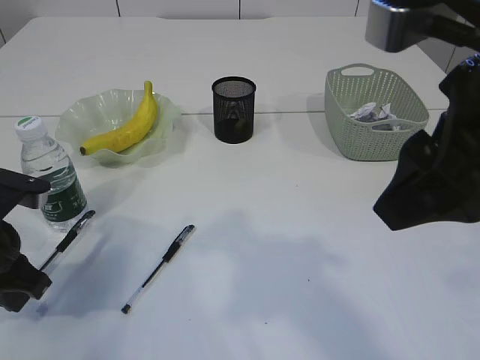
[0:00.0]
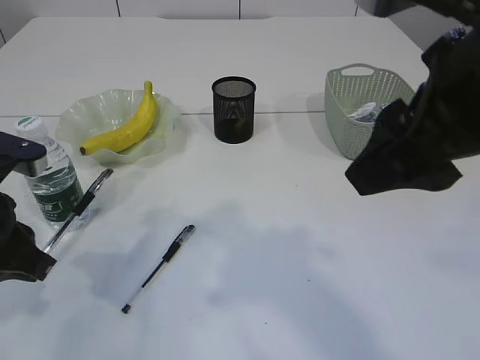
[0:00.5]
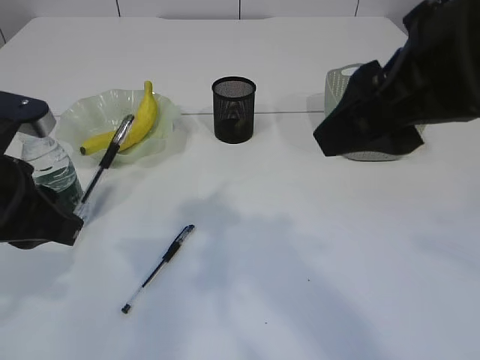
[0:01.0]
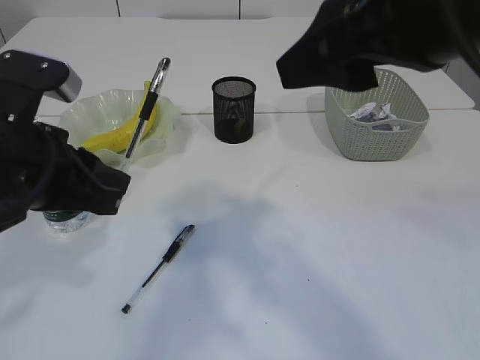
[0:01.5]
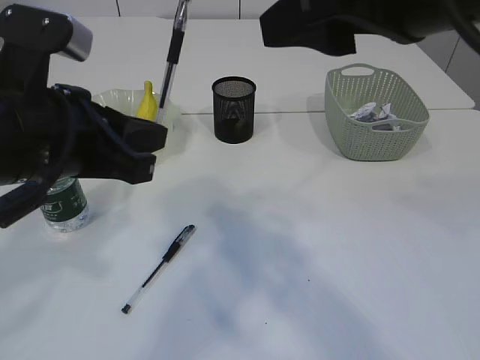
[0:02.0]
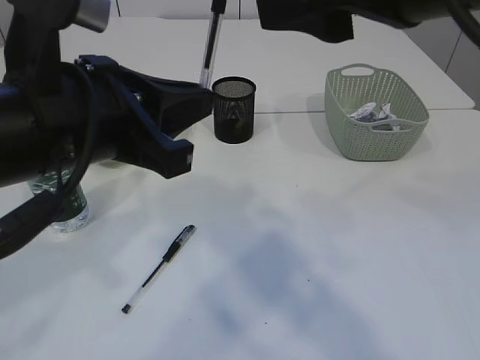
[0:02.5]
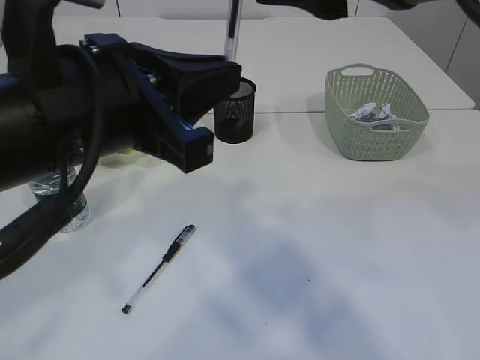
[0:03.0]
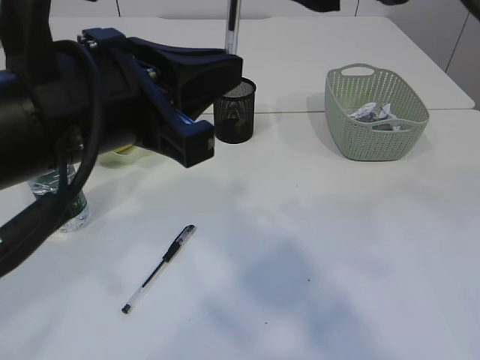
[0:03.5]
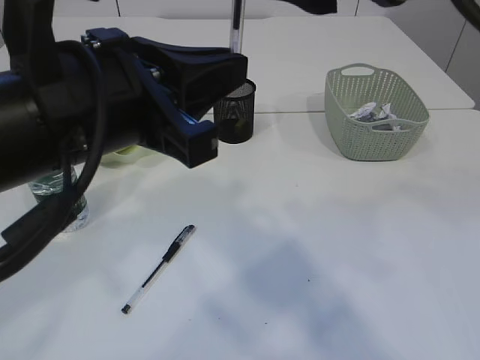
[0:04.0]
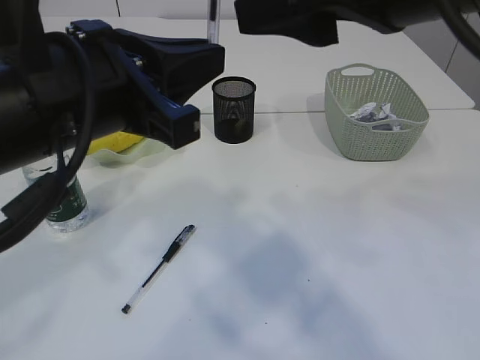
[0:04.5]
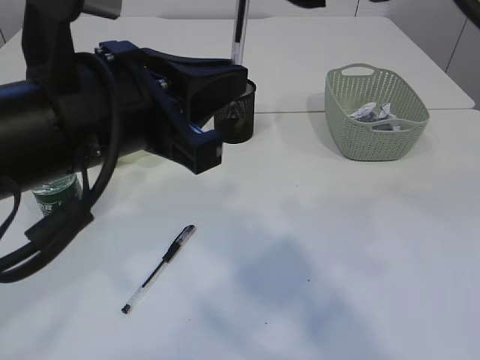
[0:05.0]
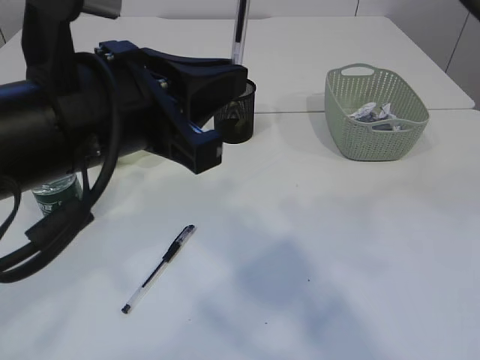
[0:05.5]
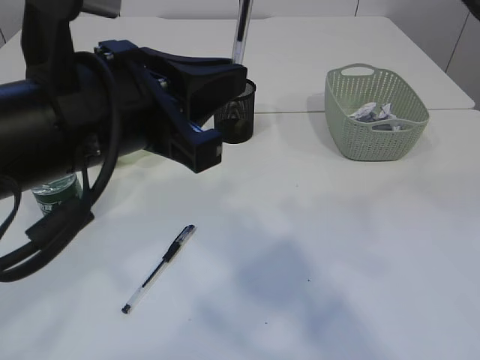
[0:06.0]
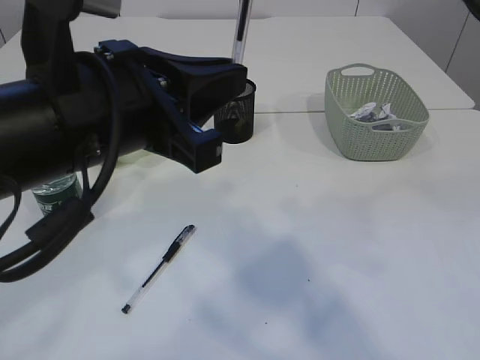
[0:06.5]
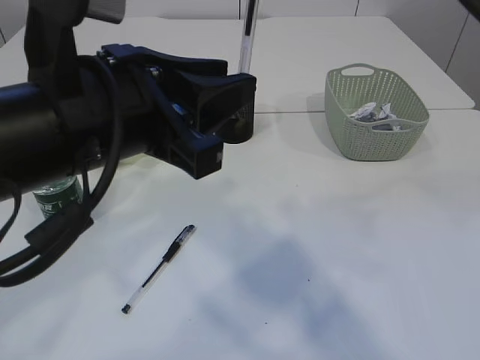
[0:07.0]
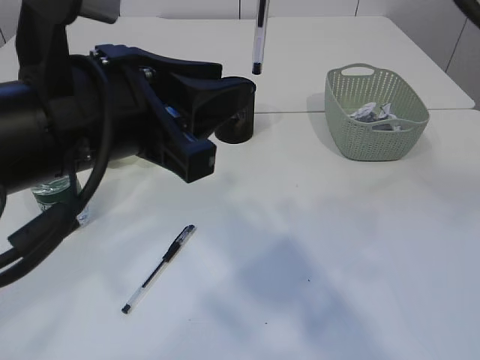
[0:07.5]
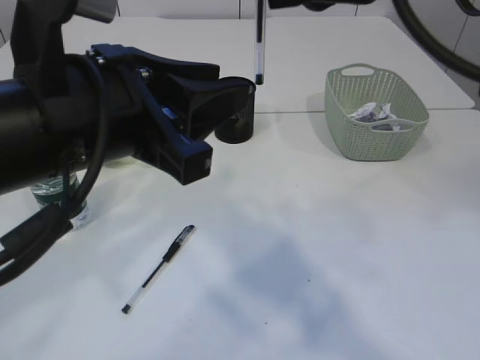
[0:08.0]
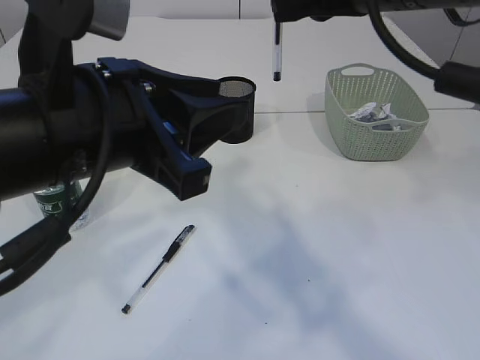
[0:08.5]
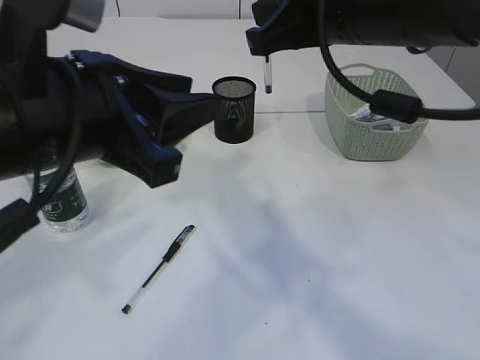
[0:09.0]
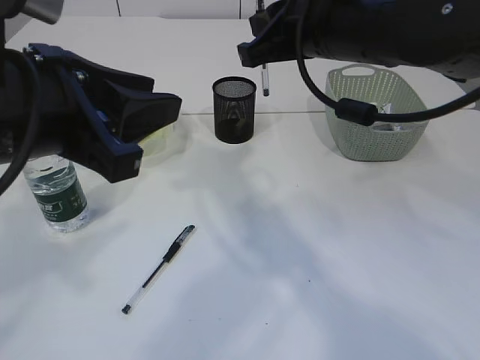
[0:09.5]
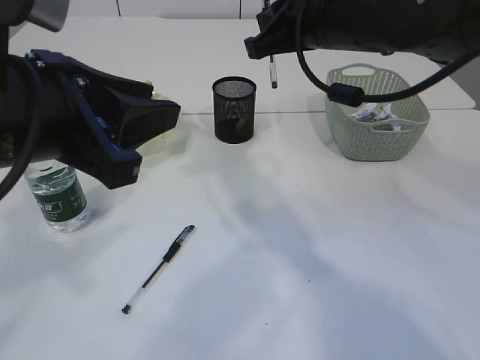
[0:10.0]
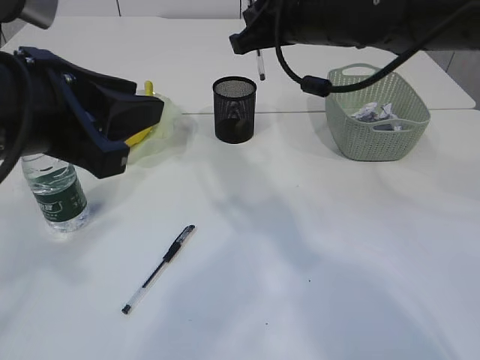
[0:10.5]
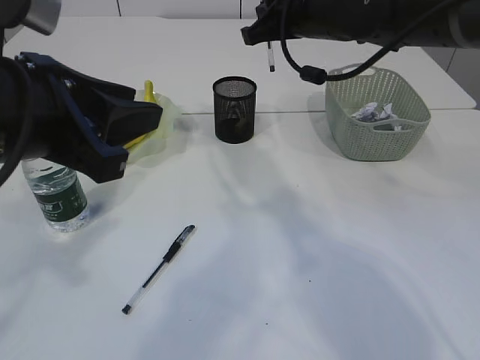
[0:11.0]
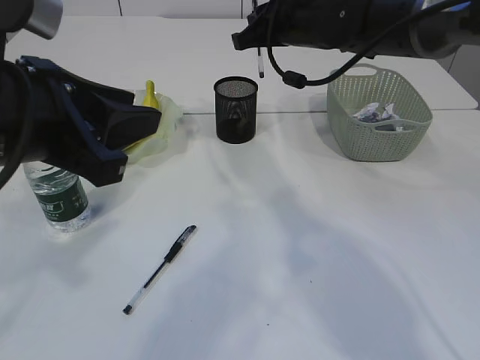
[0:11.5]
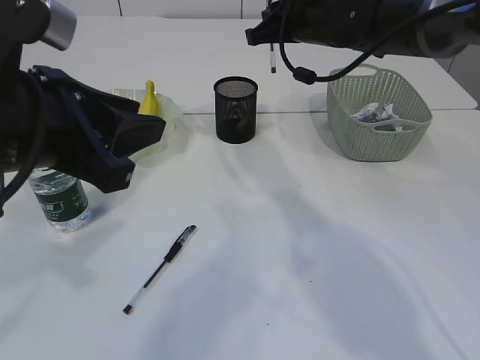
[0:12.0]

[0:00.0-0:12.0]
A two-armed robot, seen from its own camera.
Step, 0:01.0 to 0:08.0: transfer the pen to the right arm.
0:00.0 to 0:02.0: The right gripper moves approximately 5 cm. The left gripper moves upward and to the right, roughly 15 cm.
0:02.0 to 0:04.0: The left gripper goes roughly 5 cm to the right.
0:04.0 to 0:06.0: The right gripper closes.
0:06.0 to 0:08.0: The left gripper opens.
0:08.0 to 0:10.0: The right gripper goes roughly 15 cm forward and downward.
0:10.0 to 0:12.0: The right gripper heads forward, covering roughly 10 cm.

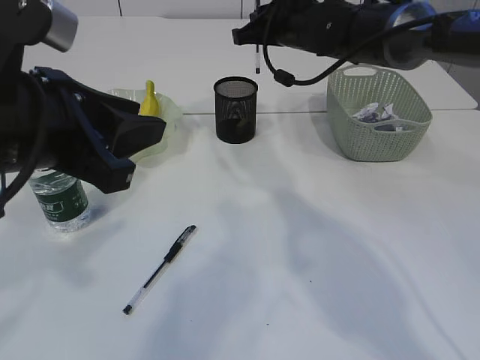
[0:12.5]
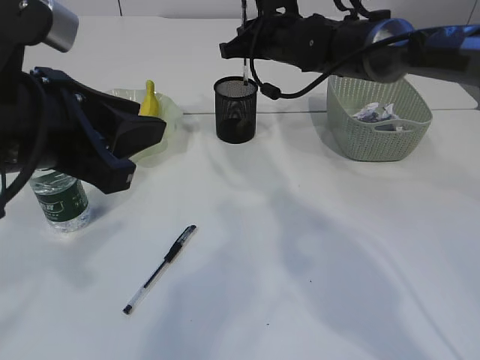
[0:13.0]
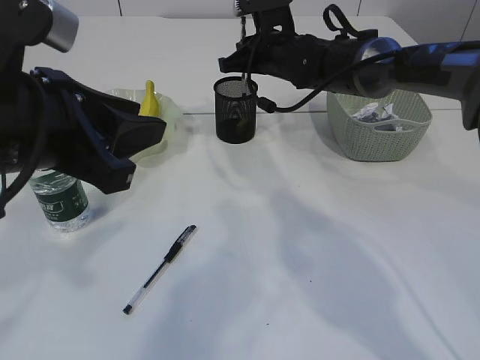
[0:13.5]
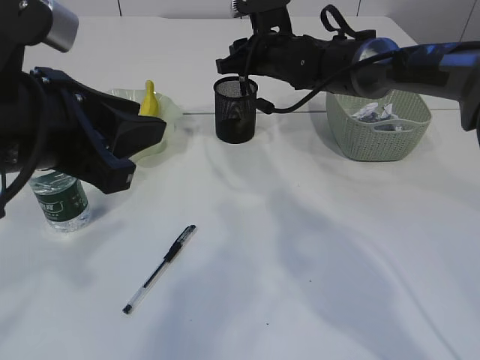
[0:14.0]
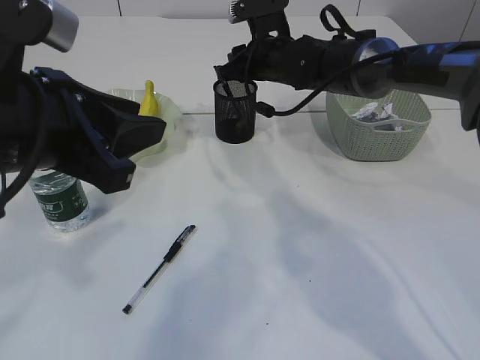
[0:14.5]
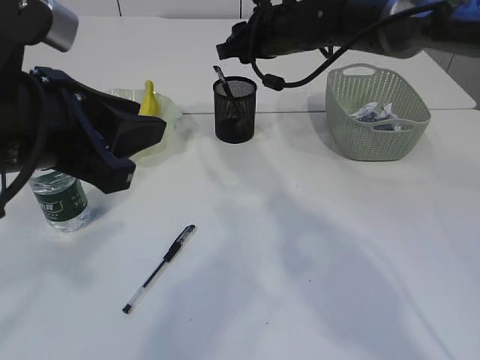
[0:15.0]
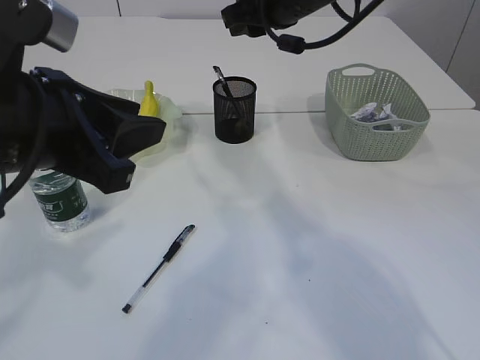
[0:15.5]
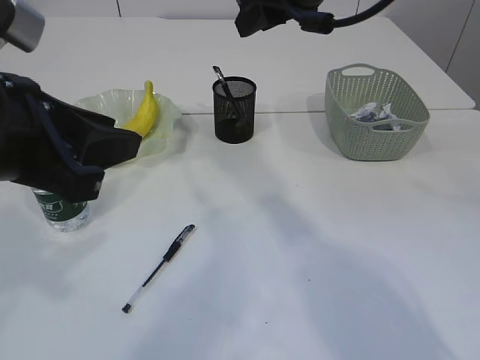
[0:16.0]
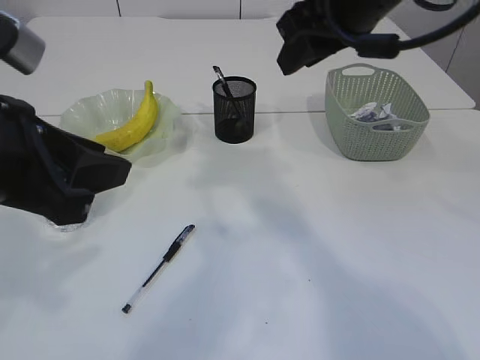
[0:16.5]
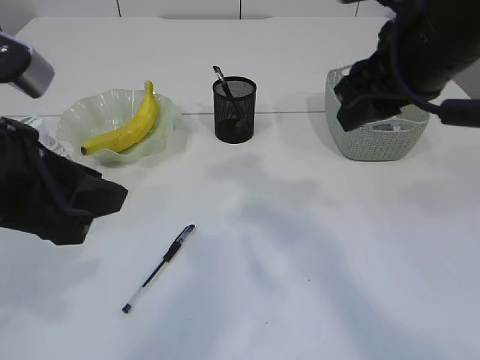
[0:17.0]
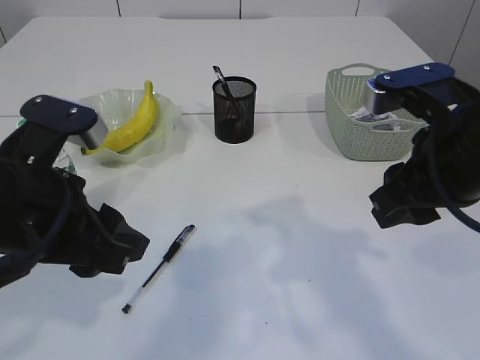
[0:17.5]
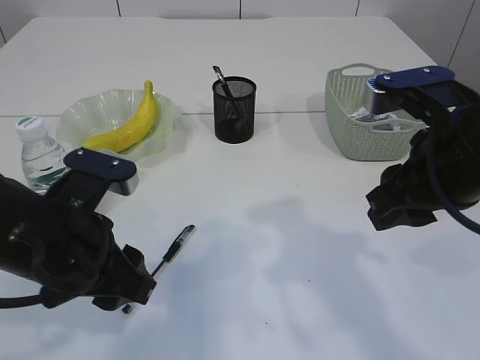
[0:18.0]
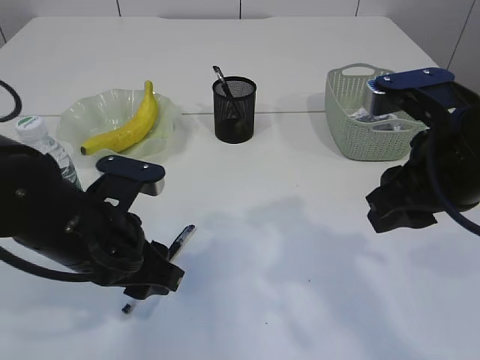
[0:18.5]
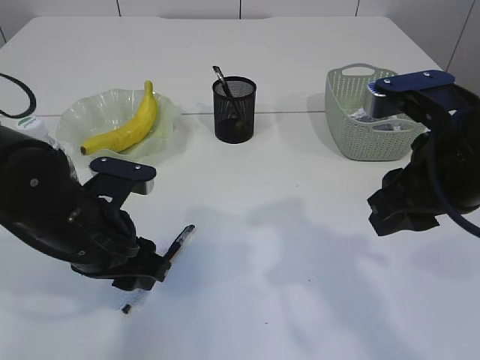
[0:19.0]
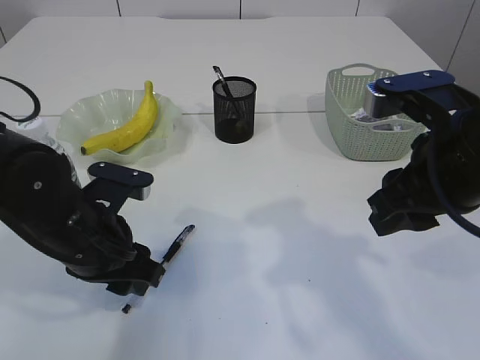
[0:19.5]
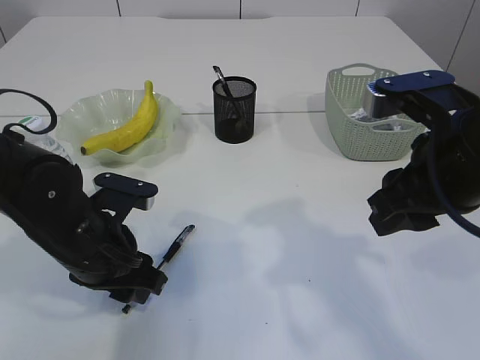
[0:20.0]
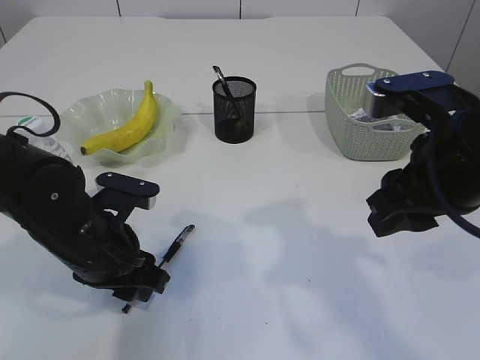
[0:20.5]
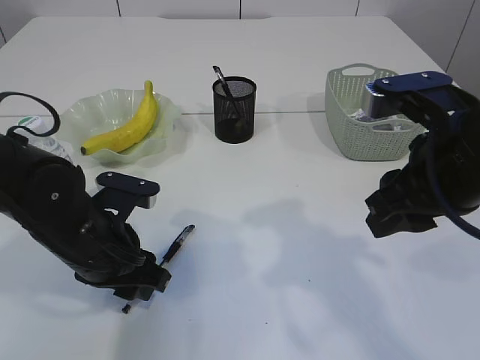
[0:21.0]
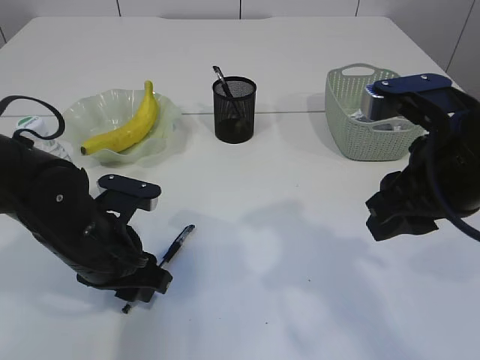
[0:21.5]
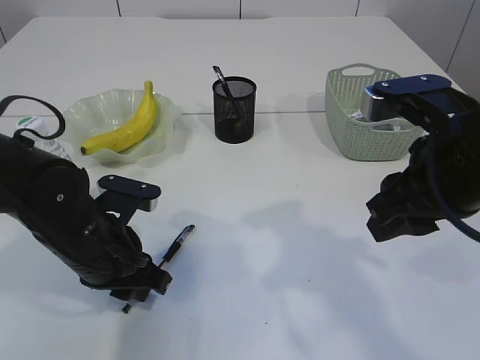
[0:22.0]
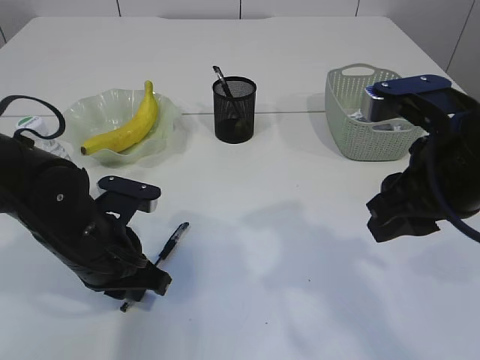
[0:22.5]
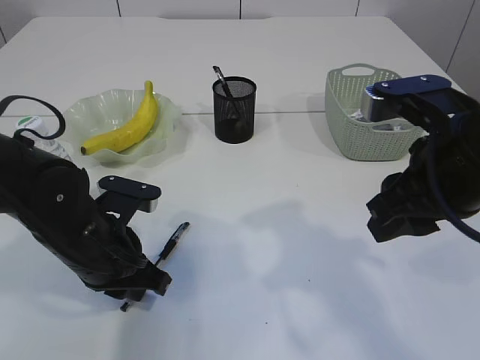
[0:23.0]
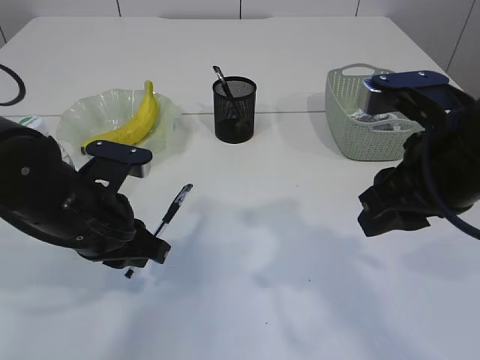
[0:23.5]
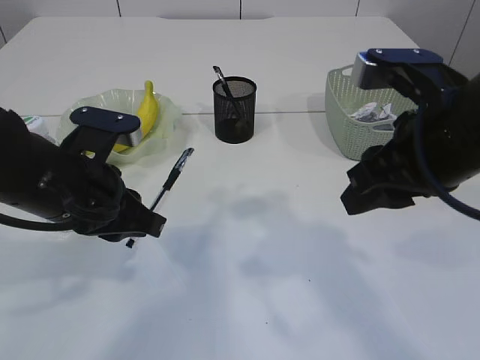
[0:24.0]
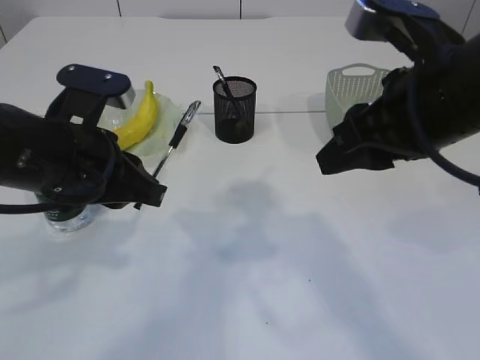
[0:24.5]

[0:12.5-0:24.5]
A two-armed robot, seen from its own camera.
Step, 0:12.5 to 0:15.0: Place the pen into the pen holder.
Step, 0:15.5 to 0:23.5: Pick up the pen with left arm.
0:12.5 to 0:14.5: The right gripper travels downward by about 5 cm, and opens.
0:14.5 to 0:16.5: The right gripper heads backward and upward, covering approximately 20 cm.
0:16.5 to 0:18.5: The left gripper is displaced downward by about 15 cm. The right gripper shifts roughly 15 cm backward, downward and to the right.
0:18.5 to 0:20.5: The left gripper changes place by some 5 cm.
0:20.5 to 0:22.5: The left gripper closes.
0:22.5 to 0:24.5: The left gripper travels upward by roughly 10 cm.

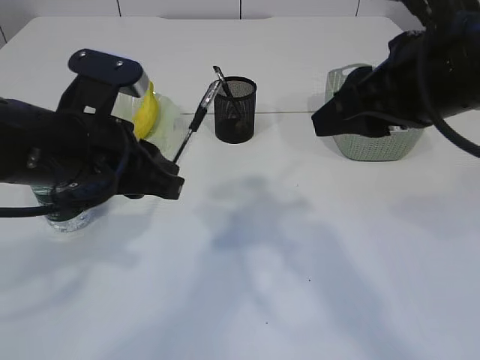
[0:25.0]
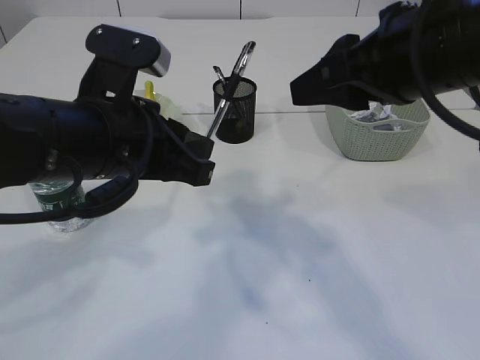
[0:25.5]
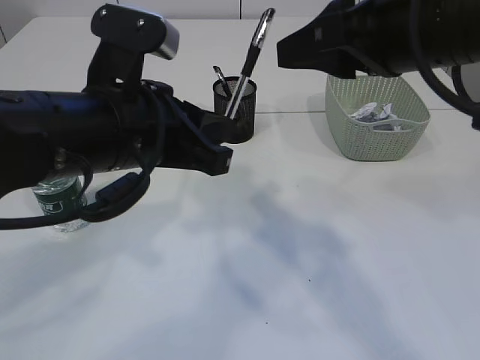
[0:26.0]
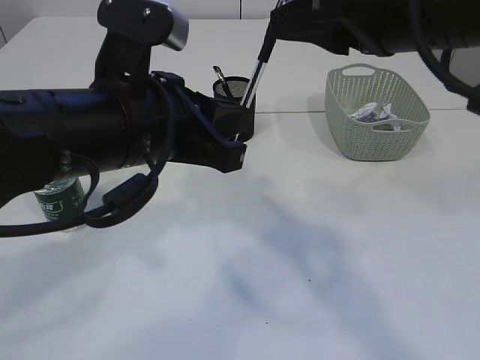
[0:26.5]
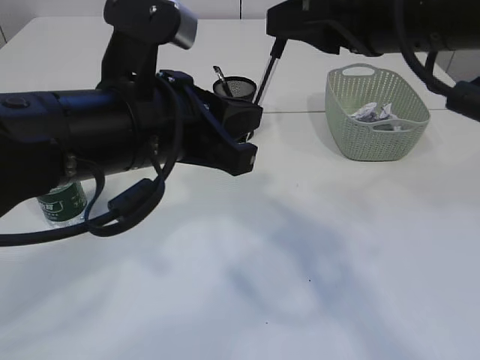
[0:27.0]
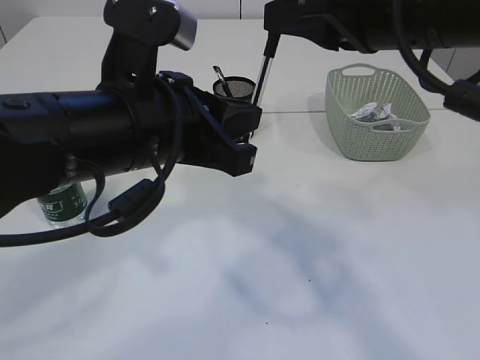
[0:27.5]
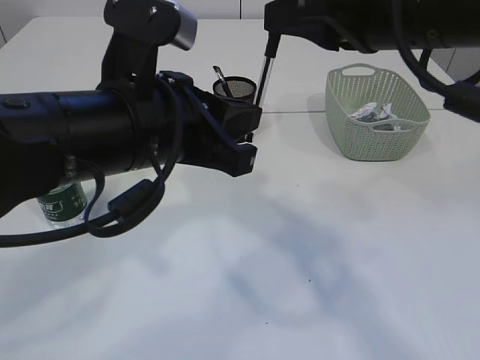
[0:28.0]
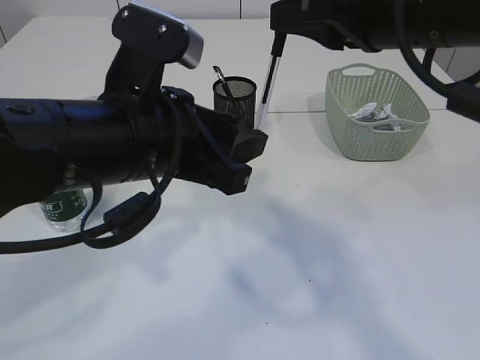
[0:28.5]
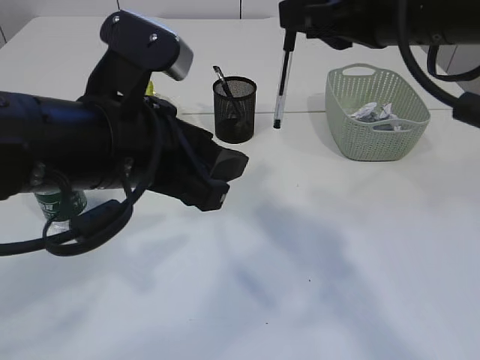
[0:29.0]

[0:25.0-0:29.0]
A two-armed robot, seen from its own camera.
Step, 0:25.0 to 0:28.5: transfer the pen to the right arm.
0:25.0 to 0:27.0: The left gripper goes about 5 cm to the right.
0:27.0 to 0:29.0: The left gripper opens its fingers.
